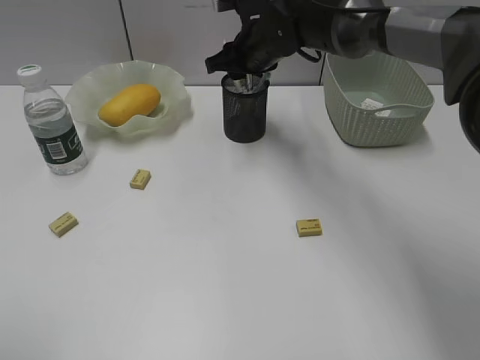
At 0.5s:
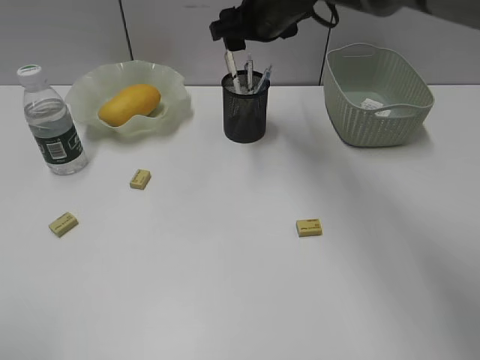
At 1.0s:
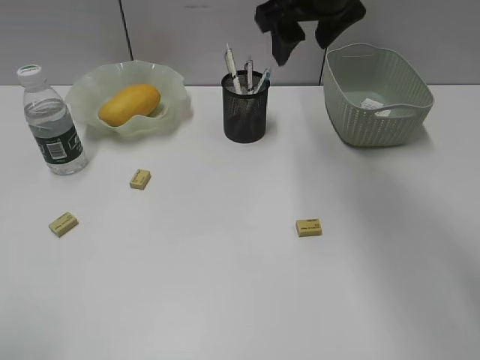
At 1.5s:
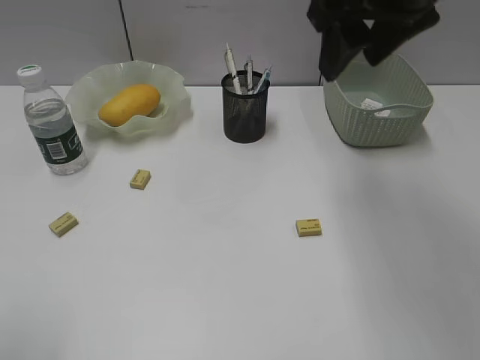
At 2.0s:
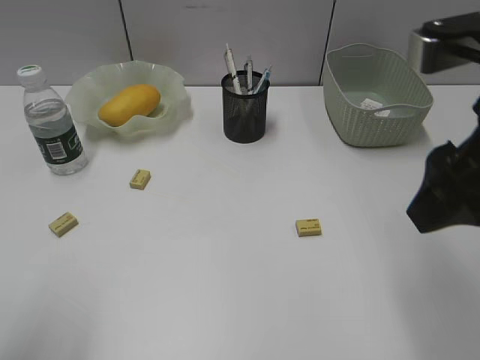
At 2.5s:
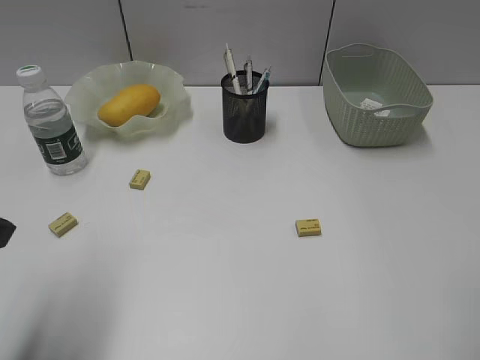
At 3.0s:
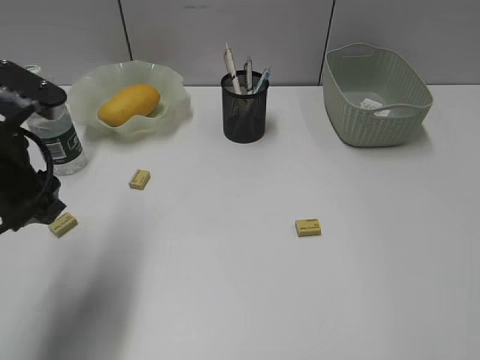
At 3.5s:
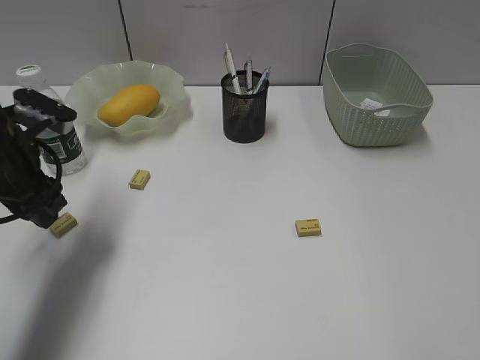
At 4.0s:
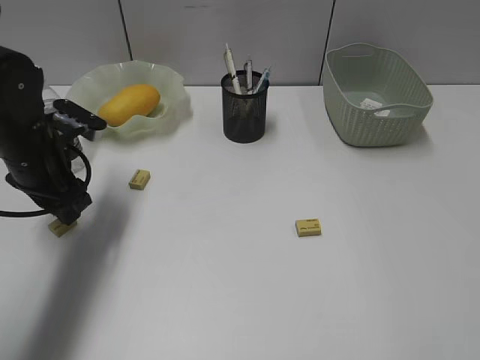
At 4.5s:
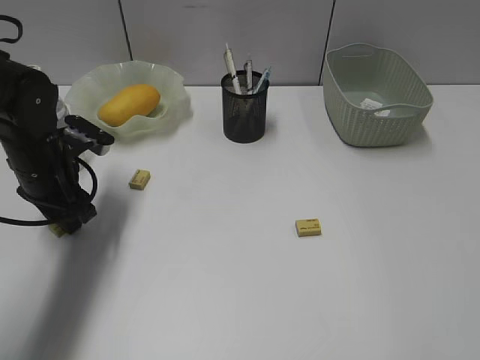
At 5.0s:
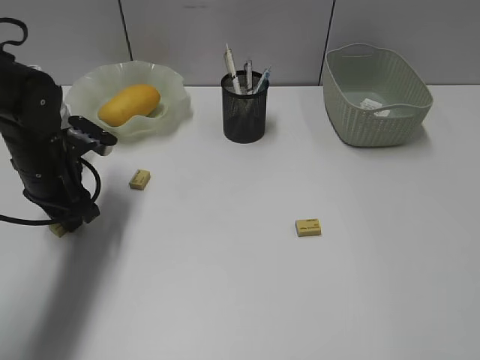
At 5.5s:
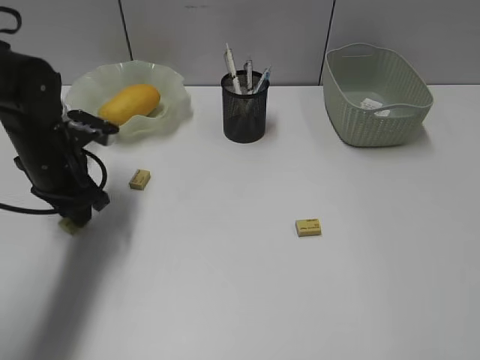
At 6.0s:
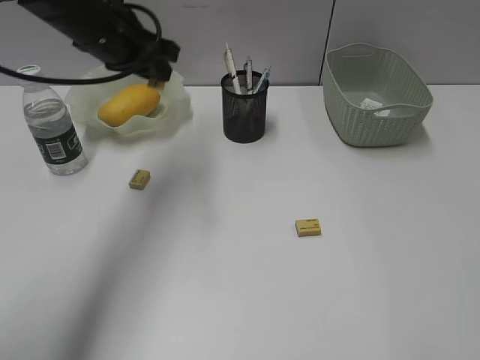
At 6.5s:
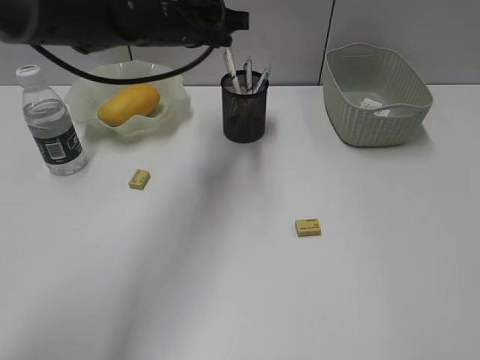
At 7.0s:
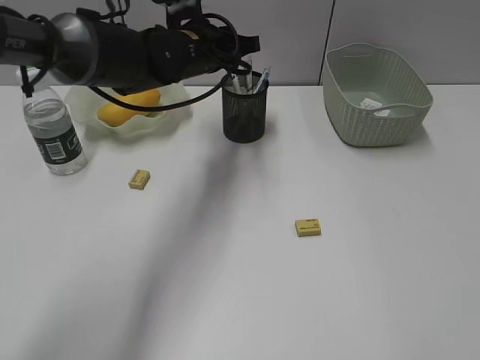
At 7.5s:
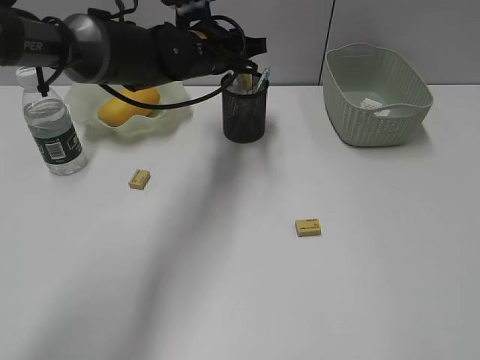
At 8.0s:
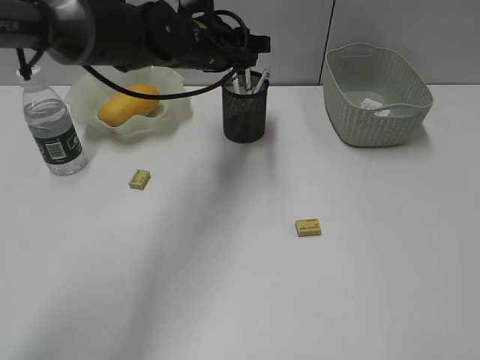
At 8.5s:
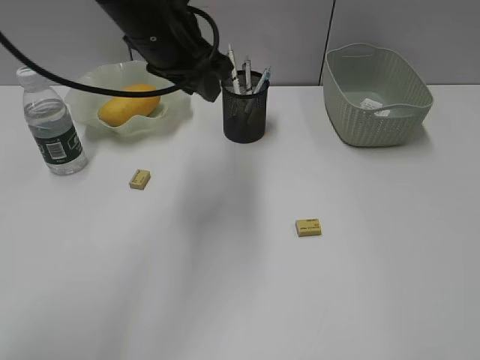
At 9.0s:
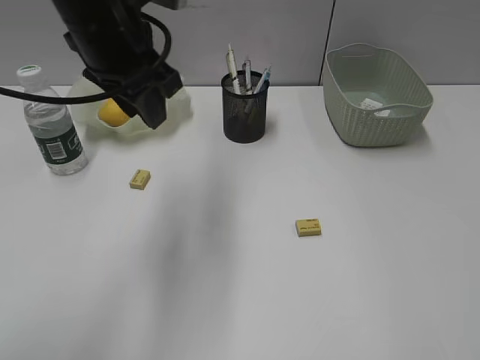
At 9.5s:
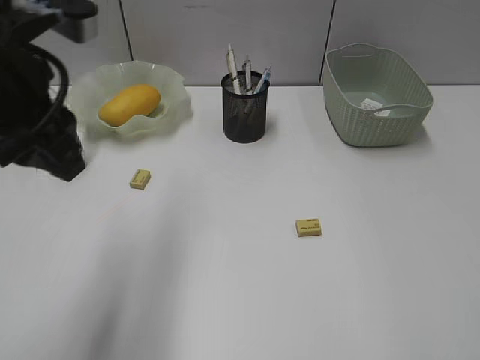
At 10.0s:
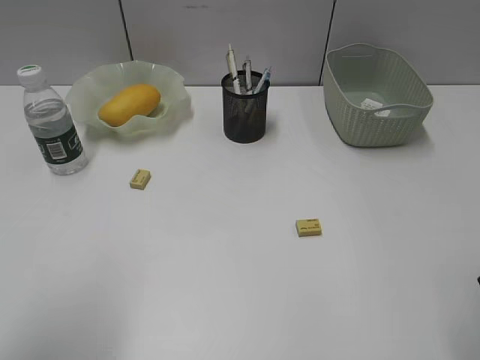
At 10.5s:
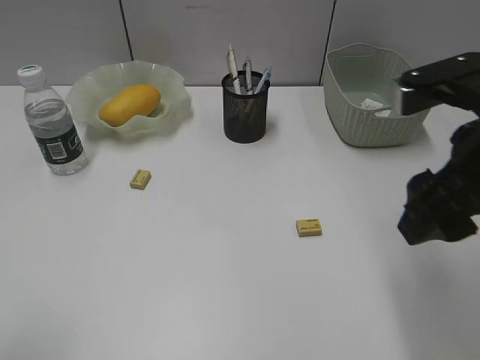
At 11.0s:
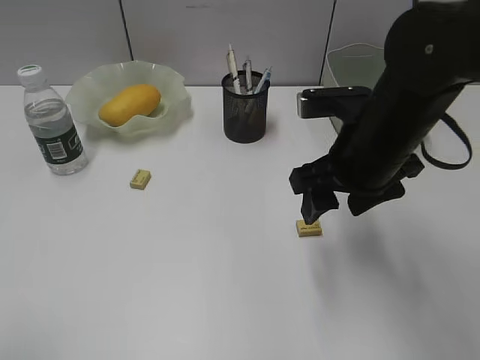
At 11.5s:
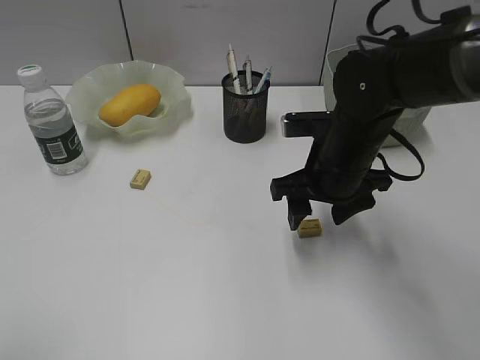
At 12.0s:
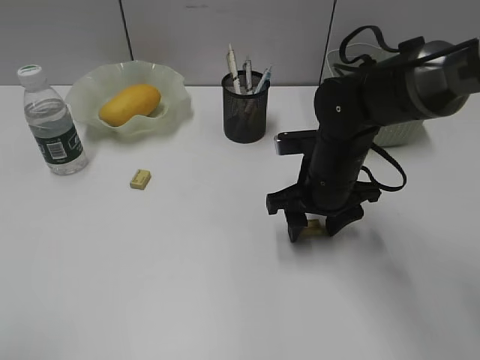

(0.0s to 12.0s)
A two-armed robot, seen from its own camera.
Step, 0.5s - 5.0s: Grasp the eraser with left gripper.
Step, 5.5s - 7.5s: Place the eraser in pen holder with left gripper.
0.0s - 2.0s: The right gripper moves backward, to the right and upward, about 35 cm. The left gripper changes place by some 5 cm.
2.0s - 4.0s: The right gripper shifts about 15 cm backward and to the right. The left gripper shifts some 30 cm forward and downward.
4.0s - 6.0s: The left gripper goes roughly 15 cm upward, to the right and forward, and closes its fingers.
6.0s - 8.0s: The left gripper is displaced to the right by approximately 10 cm.
8.0s - 10.0s: The right gripper is displaced forward by approximately 10 cm, while the left gripper goes approximately 40 cm backward and to the left, and opens its fingers.
10.0s - 12.0s: The right gripper goes some 30 cm forward, downward and to the left; the left gripper goes roughly 5 cm backward.

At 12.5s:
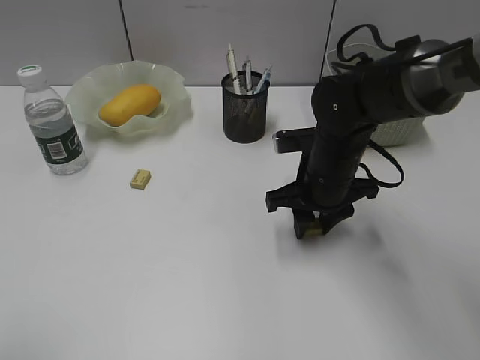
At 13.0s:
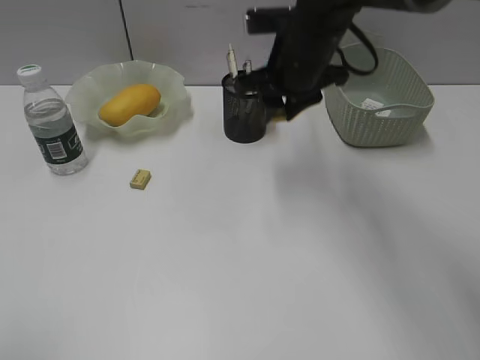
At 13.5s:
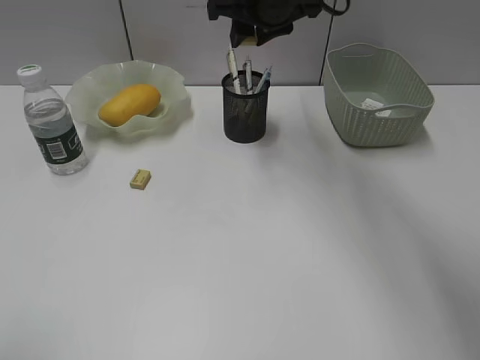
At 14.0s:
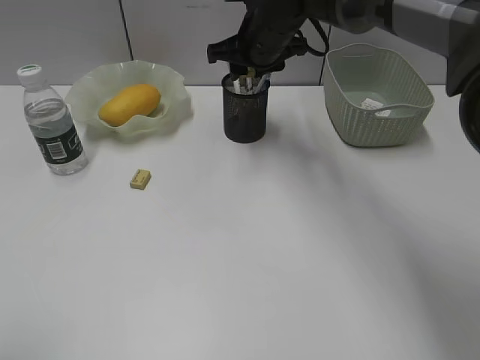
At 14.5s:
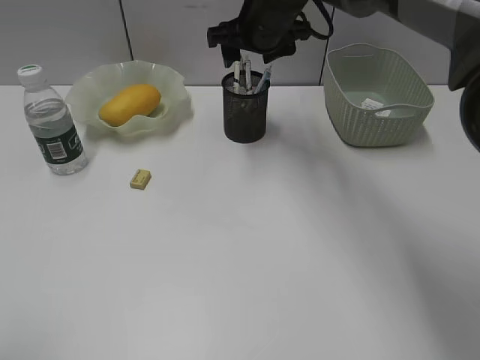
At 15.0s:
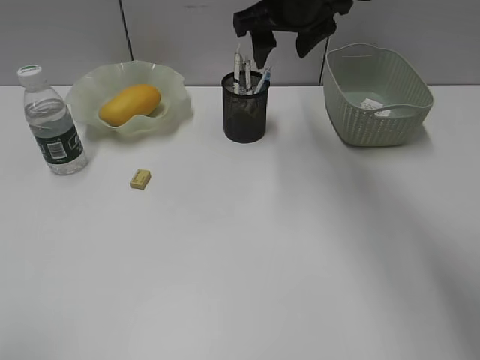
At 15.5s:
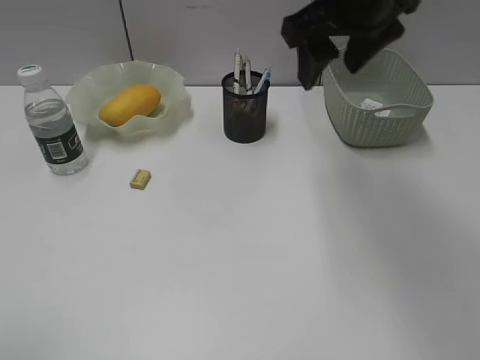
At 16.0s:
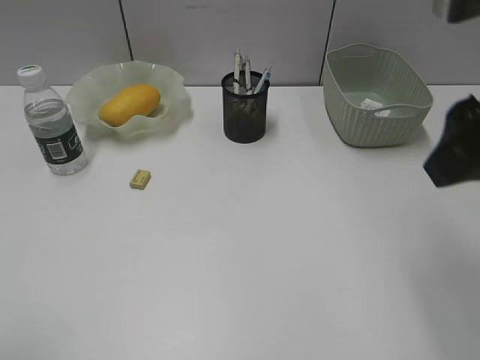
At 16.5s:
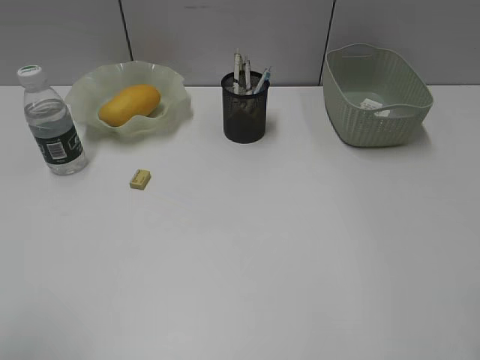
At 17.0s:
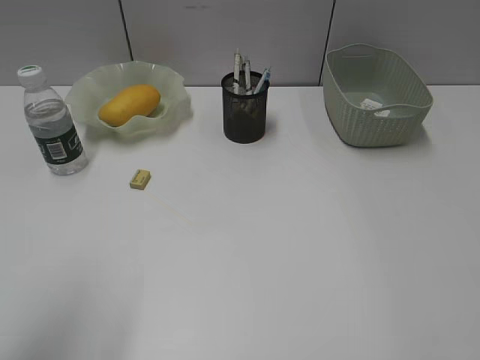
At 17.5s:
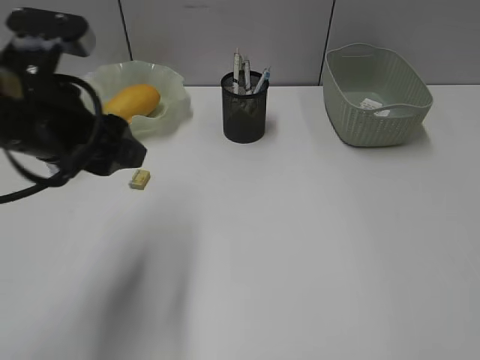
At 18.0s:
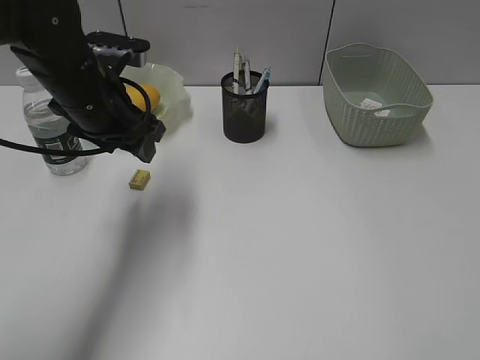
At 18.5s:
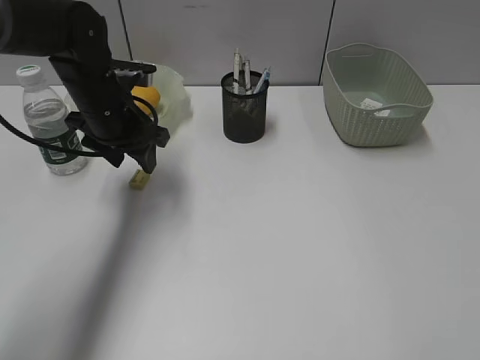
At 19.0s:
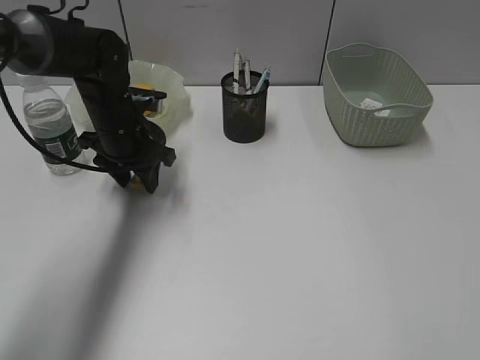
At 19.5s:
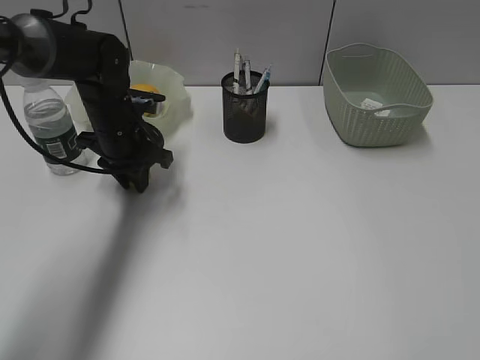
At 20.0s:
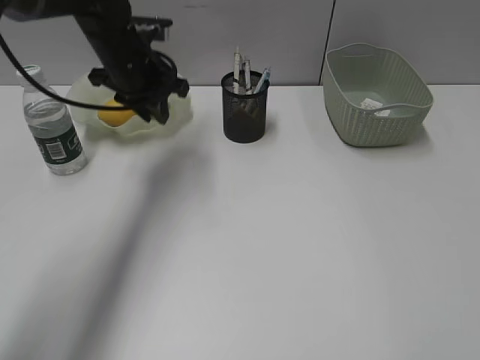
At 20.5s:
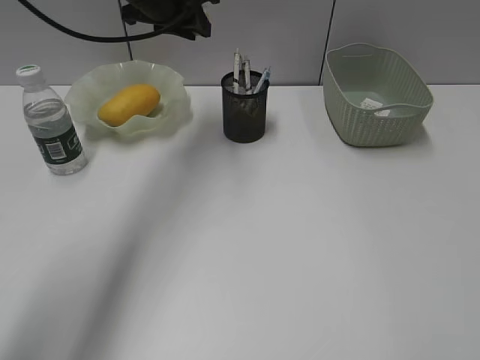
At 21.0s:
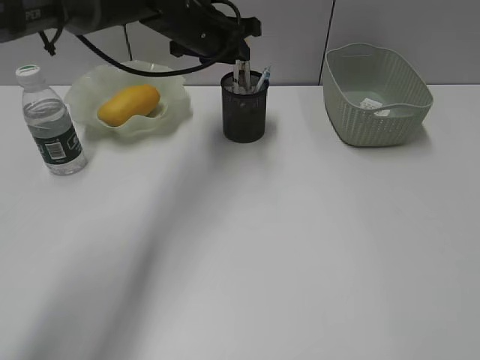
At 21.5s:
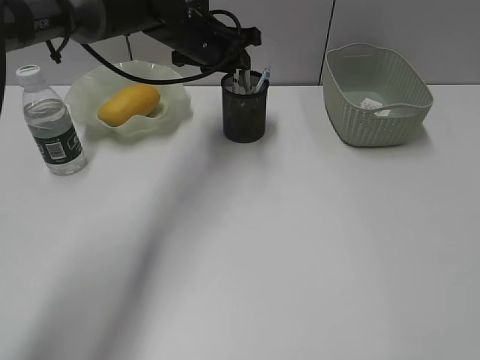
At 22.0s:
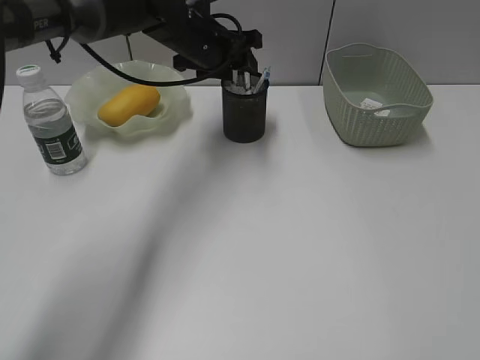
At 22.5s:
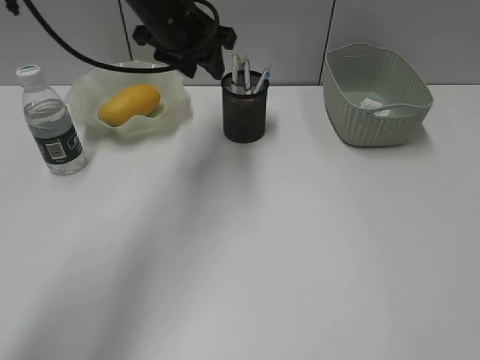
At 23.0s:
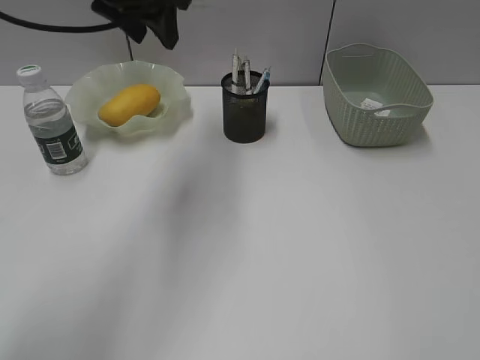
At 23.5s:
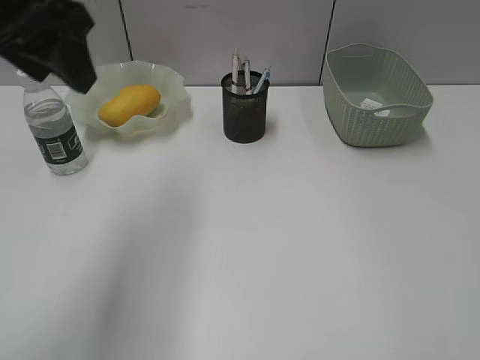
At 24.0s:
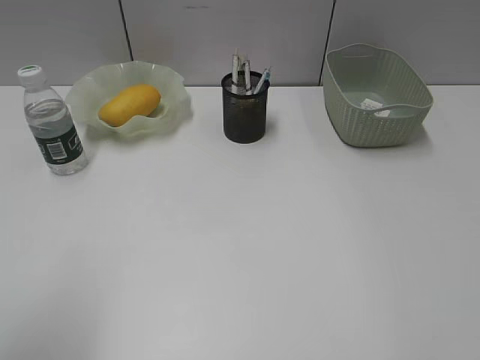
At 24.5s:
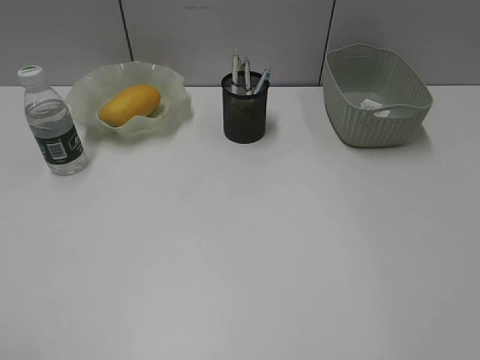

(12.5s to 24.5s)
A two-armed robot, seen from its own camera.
Step, 12.5s - 14.0s: Place the eraser in pen holder with right gripper.
Step, 14.5s - 19.5s: Grasp the eraser with left gripper.
Step, 20.0s - 21.5s: Place the eraser in pen holder with left gripper.
12.5s - 14.5s: The right gripper shifts roughly 20 cm forward, upward and to the left, and opens up.
14.5s - 16.5s: The right gripper shifts approximately 40 cm backward and to the right.
16.5s - 18.5s: The left gripper travels forward by about 35 cm.
18.5s - 20.5s: The left gripper goes about 15 cm upward, forward and to the right, and closes its fingers.
20.5s - 22.5s: The left gripper opens up.
22.5s - 24.5s: The left gripper moves backward and to the left, approximately 50 cm.

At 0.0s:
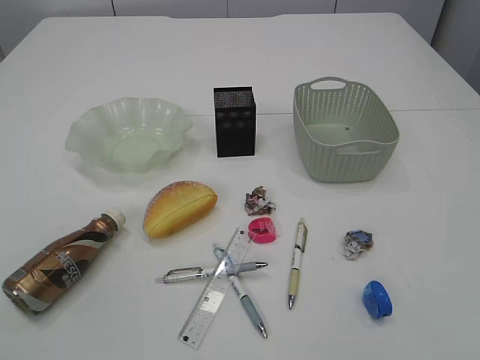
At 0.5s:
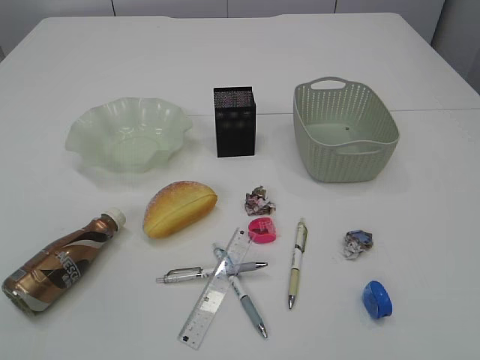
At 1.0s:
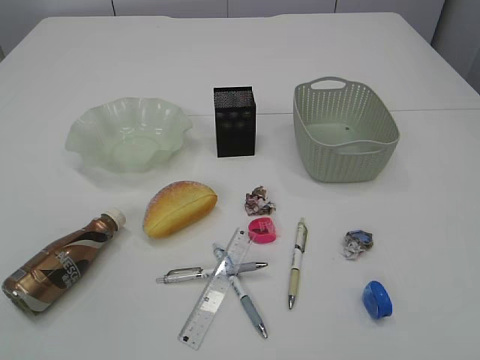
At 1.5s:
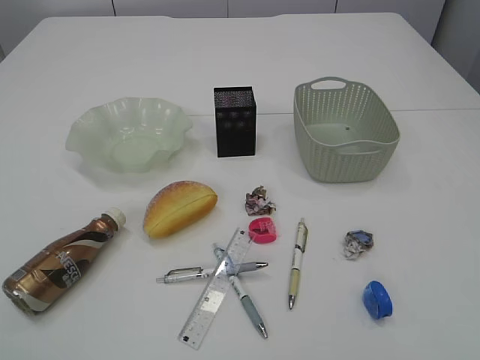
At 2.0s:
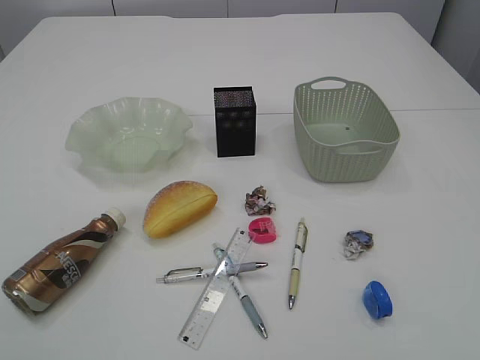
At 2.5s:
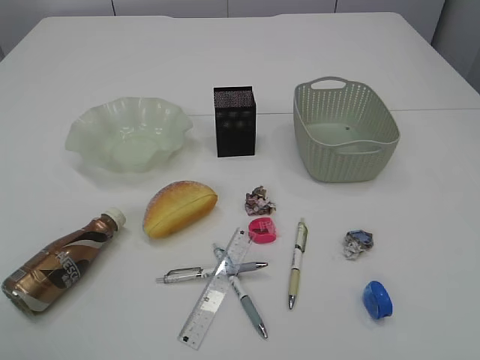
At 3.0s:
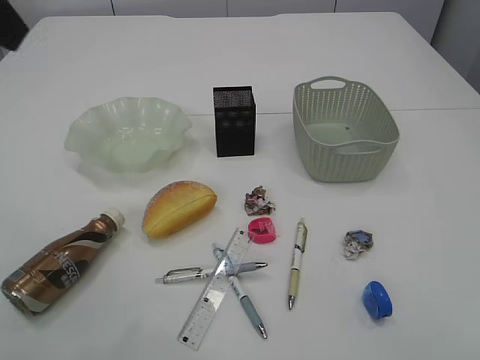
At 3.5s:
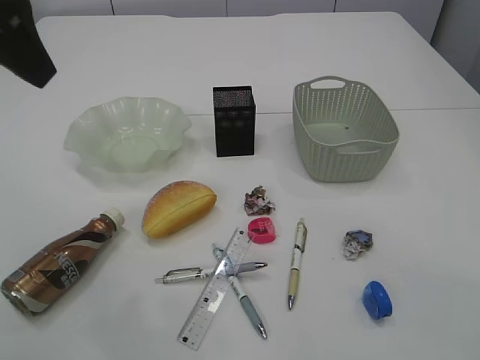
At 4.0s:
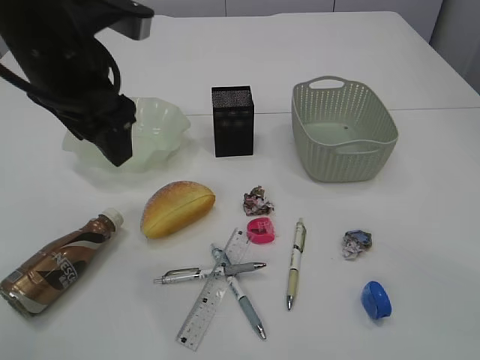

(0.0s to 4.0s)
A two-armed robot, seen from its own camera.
2.0s - 4.0s: The left gripper heads forward, to the right and downward, covering some 30 cm. Meanwhile the right gripper shifts roughly 25 cm forward and upward.
